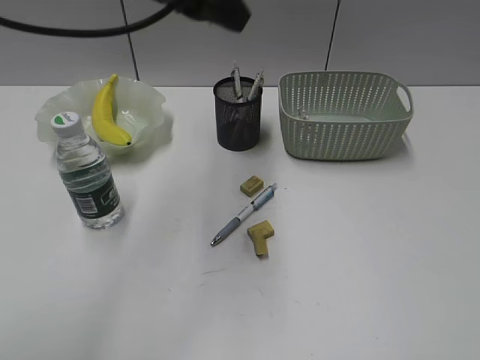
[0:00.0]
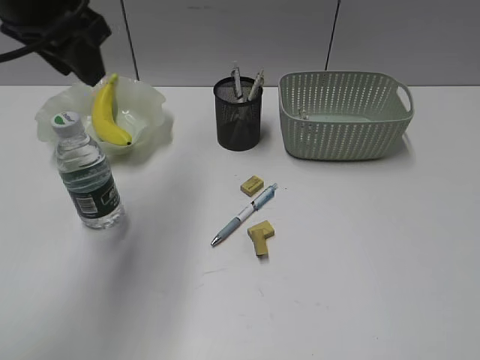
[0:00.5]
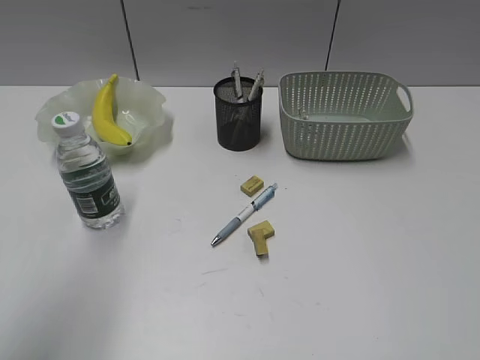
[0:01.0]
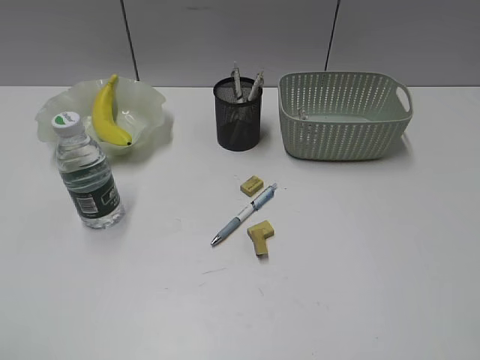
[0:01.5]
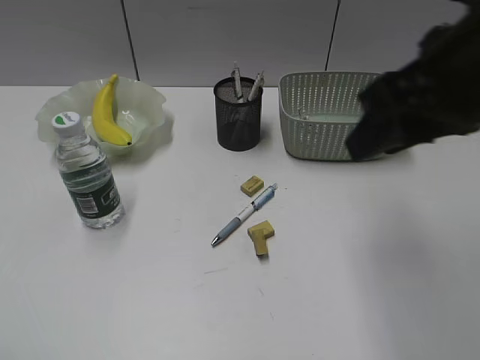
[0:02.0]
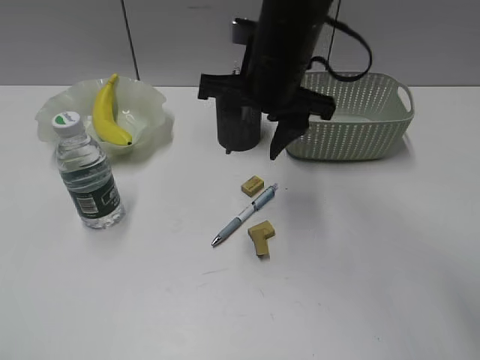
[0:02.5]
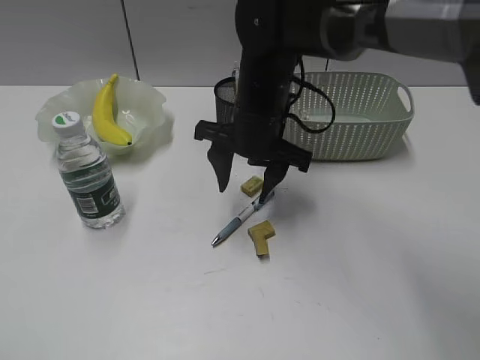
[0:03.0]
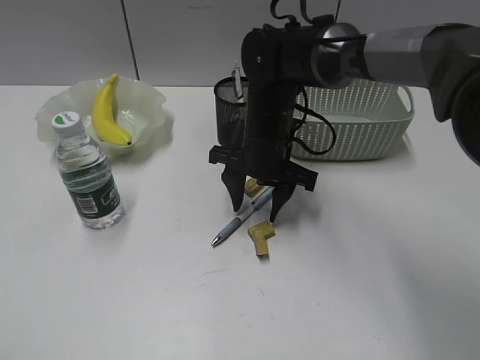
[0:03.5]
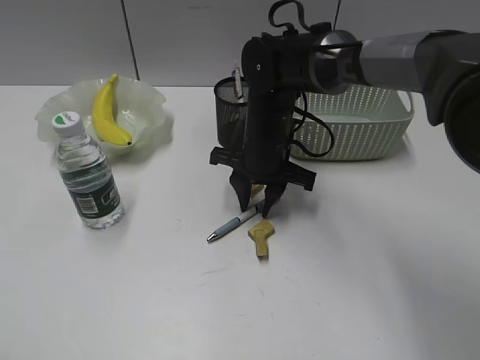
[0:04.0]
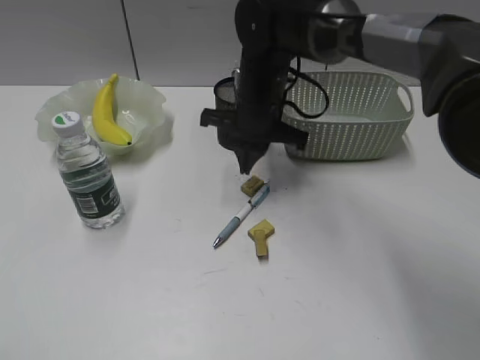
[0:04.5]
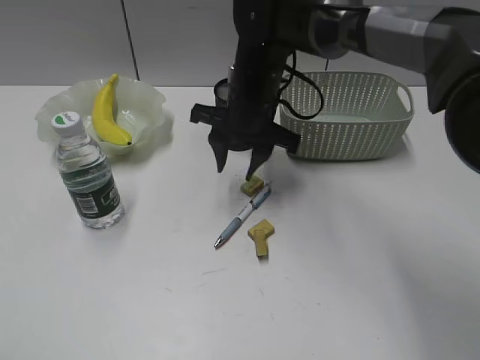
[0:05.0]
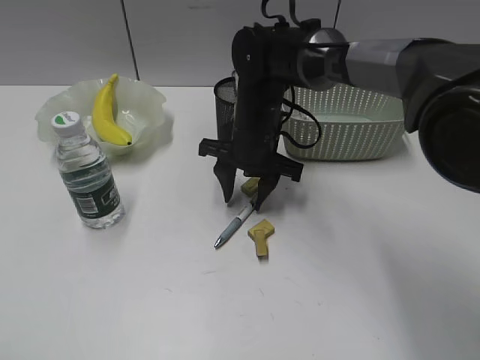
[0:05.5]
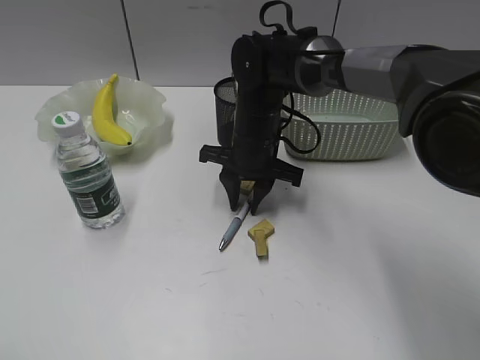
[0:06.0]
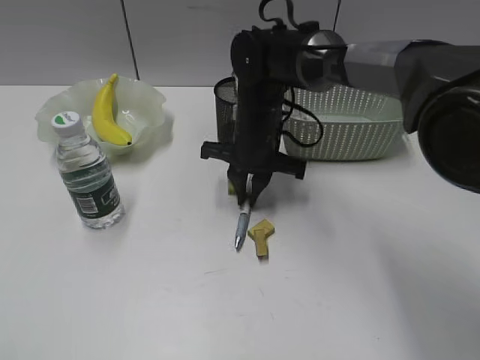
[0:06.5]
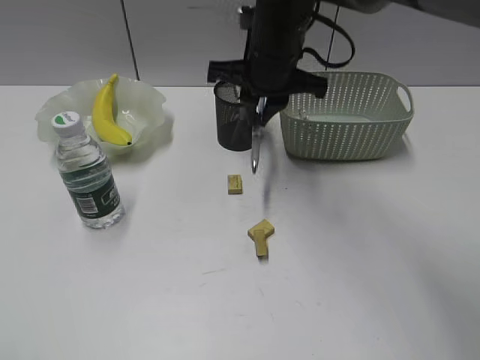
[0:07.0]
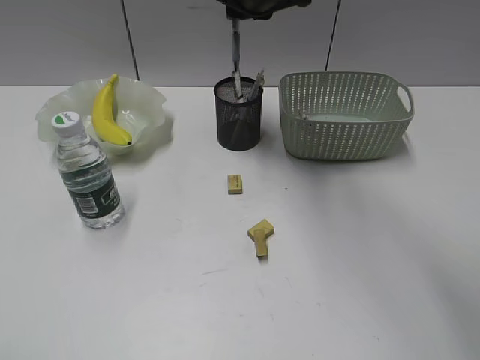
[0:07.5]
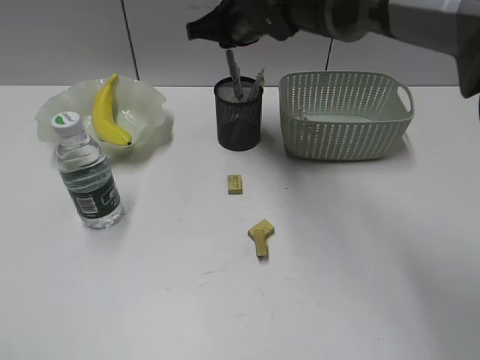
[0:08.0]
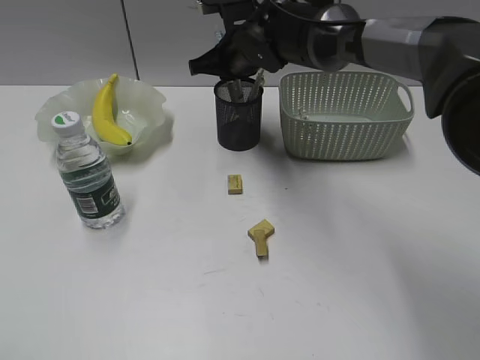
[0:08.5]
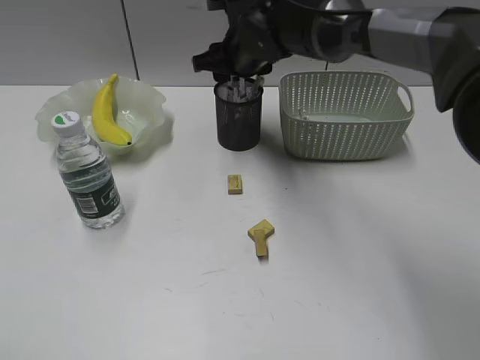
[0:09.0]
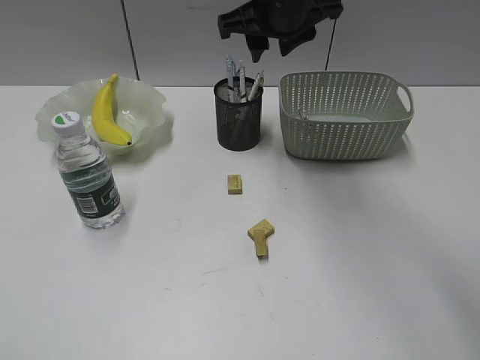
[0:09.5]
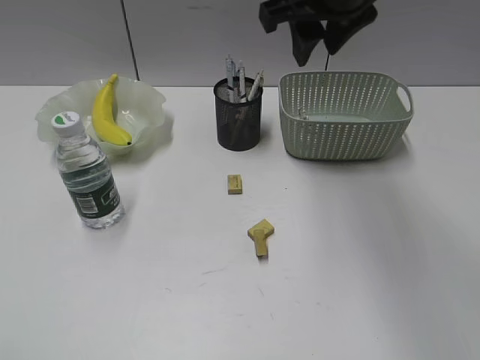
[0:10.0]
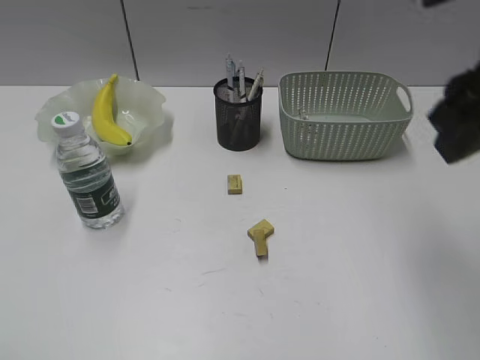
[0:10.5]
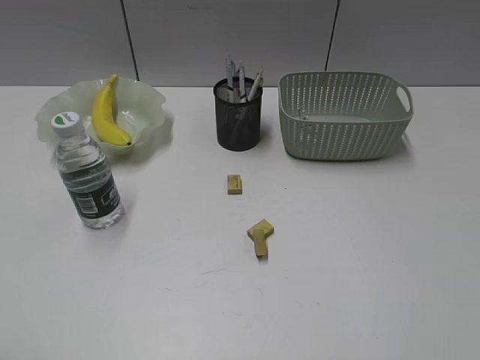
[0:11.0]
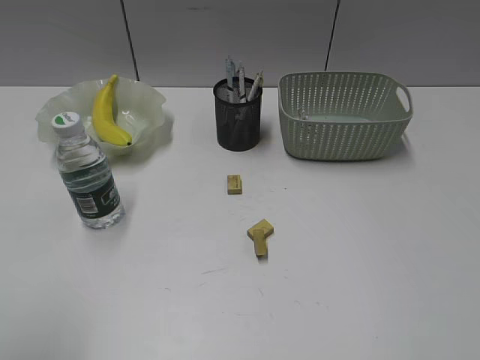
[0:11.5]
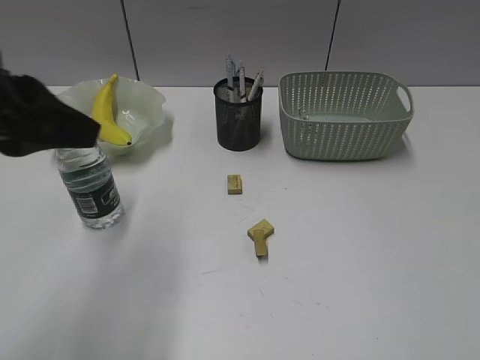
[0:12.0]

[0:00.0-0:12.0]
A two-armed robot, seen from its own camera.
Step, 0:00.0 to 0:06.0: Grasp the blue pen with right gripper.
Step, 0:06.5 to 0:09.0: Place the blue pen in pen holder with right gripper.
0:00.0 to 0:02.0: The right gripper moves forward and to the left, some 25 cm. Meanwhile the left gripper is displaced backward and to the left by some 40 cm.
0:02.0 to 0:04.0: The right gripper moves downward, forward and to the left, approximately 30 cm.
0:04.0 to 0:06.0: The right gripper closes, then reopens.
0:06.0 to 0:08.0: The right gripper heads upward and forward, covering roughly 15 cm.
0:08.0 to 0:10.0: The right gripper heads backward, upward and to the right, covering approximately 15 cm, and opens its fingers.
0:10.0 to 0:12.0: The left gripper shifts about 20 cm forward and to the right. Meanwhile the right gripper goes roughly 40 cm backward and to the right.

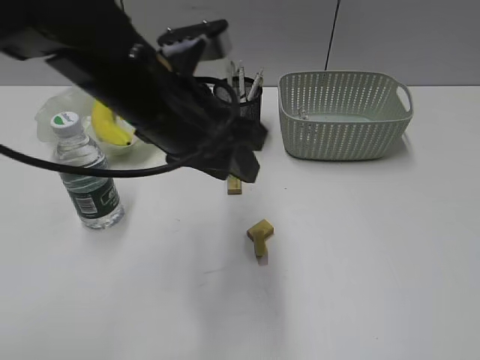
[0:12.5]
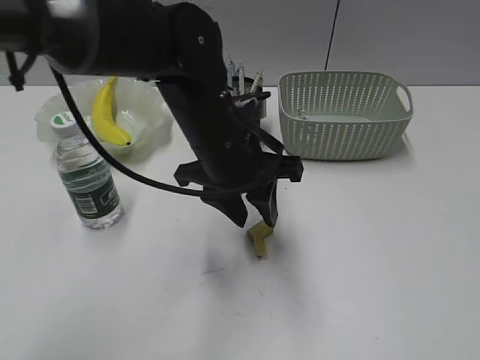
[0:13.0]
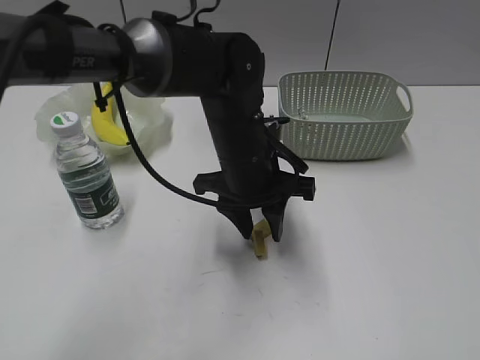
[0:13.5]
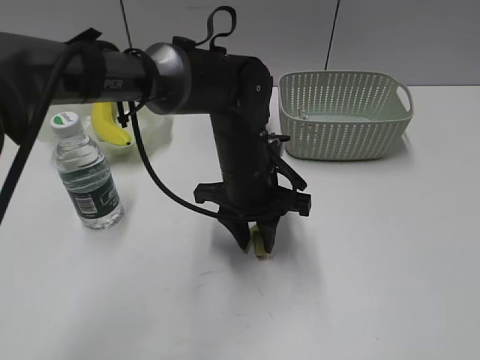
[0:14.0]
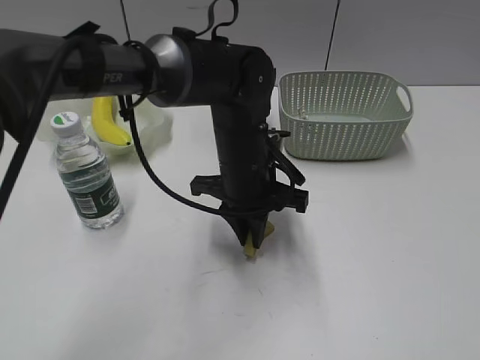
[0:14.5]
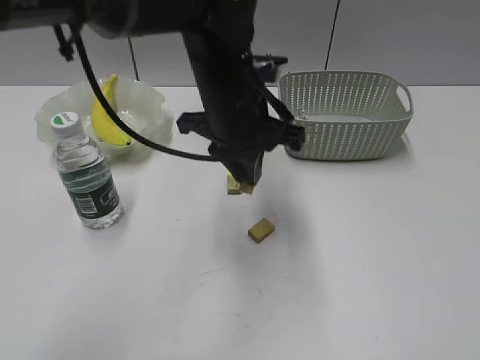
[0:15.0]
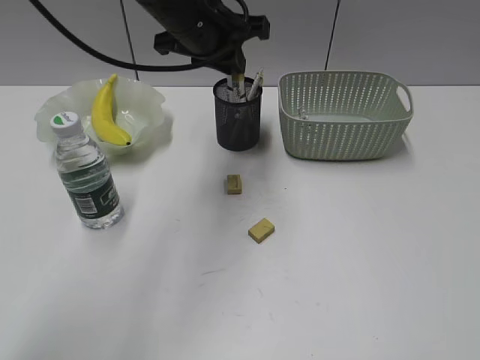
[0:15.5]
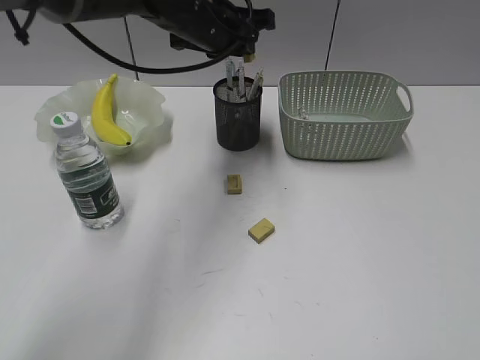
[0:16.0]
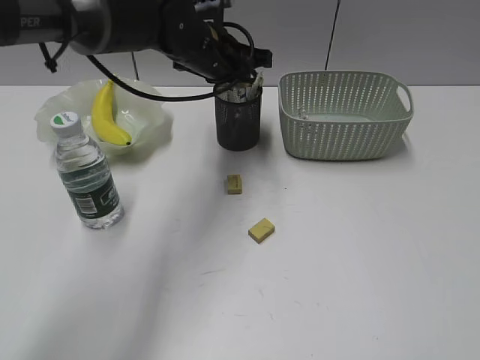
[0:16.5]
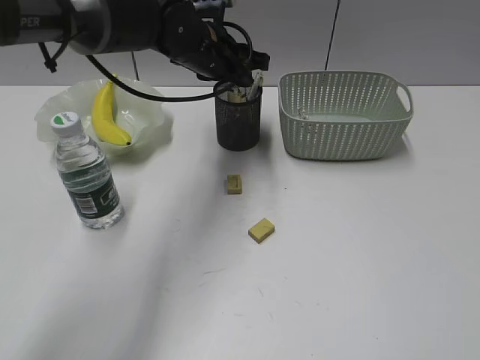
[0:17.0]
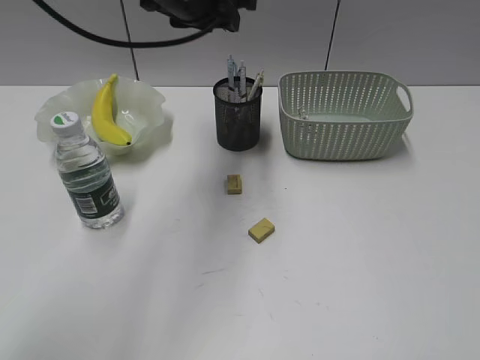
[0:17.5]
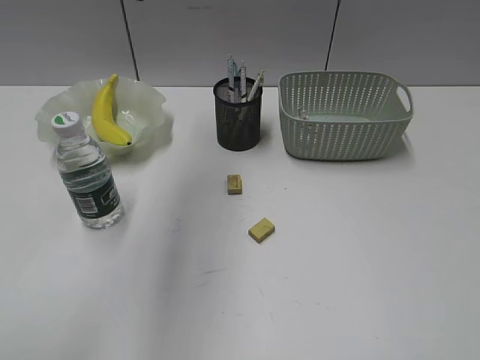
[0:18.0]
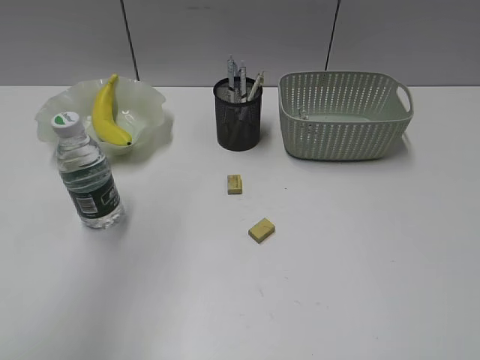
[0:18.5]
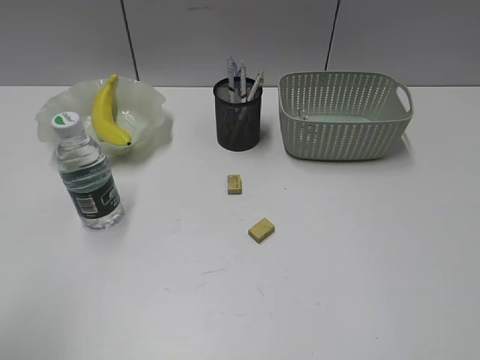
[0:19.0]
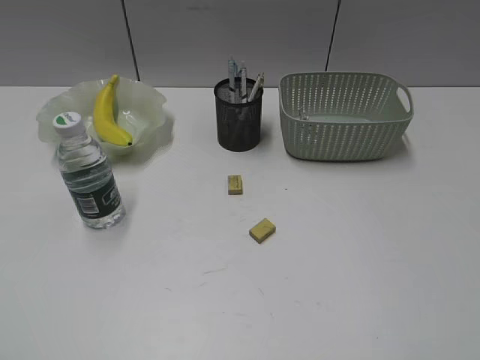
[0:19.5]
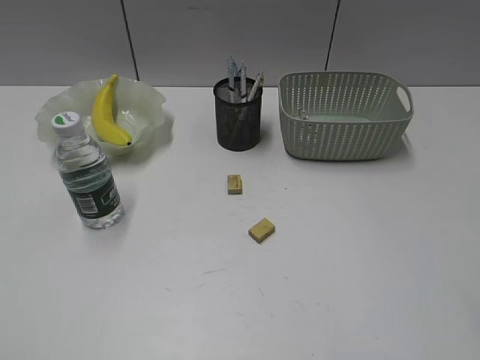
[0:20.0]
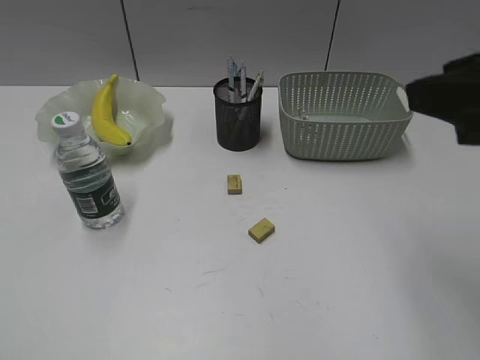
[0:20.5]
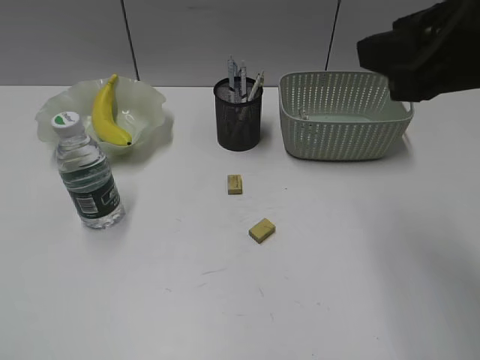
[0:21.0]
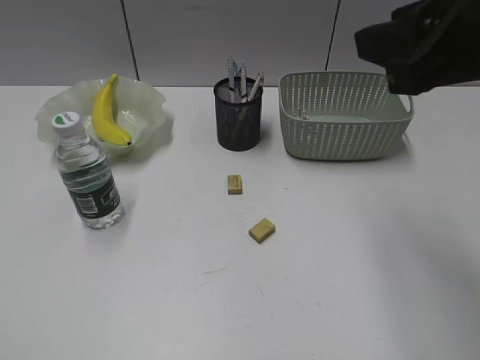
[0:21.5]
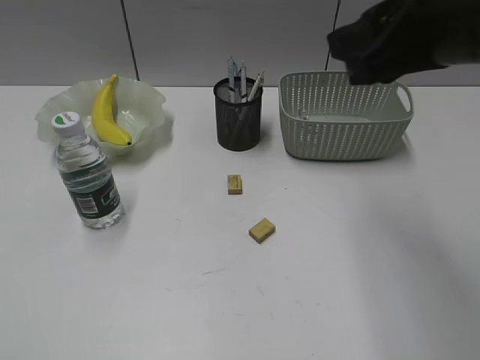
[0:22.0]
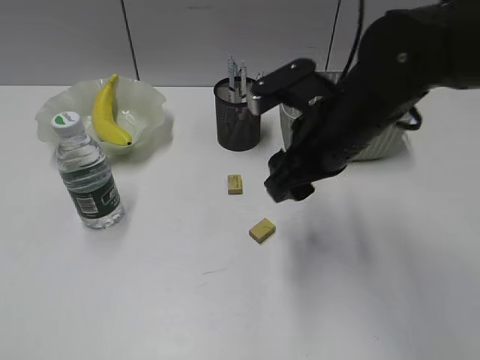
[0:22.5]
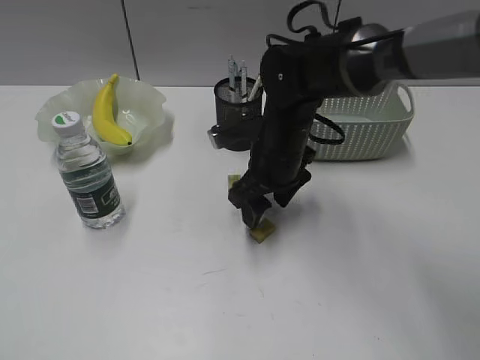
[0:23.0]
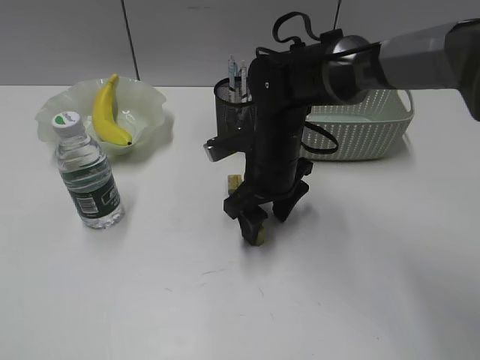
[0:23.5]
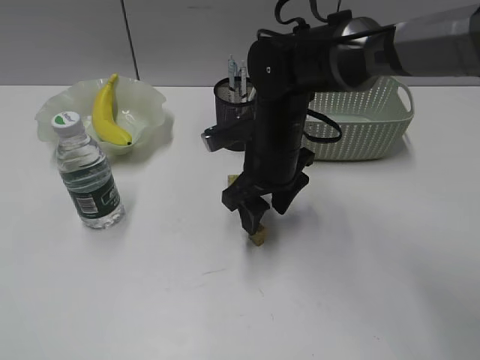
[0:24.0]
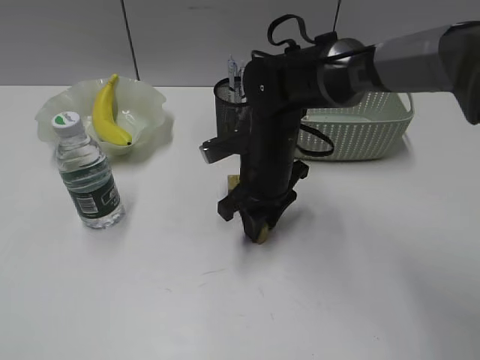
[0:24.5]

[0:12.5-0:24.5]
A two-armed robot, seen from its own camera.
Step, 0:14.5 to 0:17.0: Place the eraser in pen holder with left gripper.
0:12.5 to 0:14.5: The left gripper travels downward, to the right and forward by about 15 cm, and closes up.
0:14.5 to 0:16.5: The left gripper moves forward, upward and to the left, some 15 cm.
0:16.5 to 0:18.5: The left gripper shifts about 40 cm upward, backward and to the left, and opens.
0:18.5 to 0:20.5: The right gripper shifts some 20 cm forward and to the left; the left gripper is displaced backward, downward and to the left by about 30 cm.
0:20.5 to 0:22.5: The right gripper heads downward, forward and to the left, covering some 20 cm.
0:22.5 to 0:24.5: The right gripper travels downward, to the left and forward by approximately 15 cm.

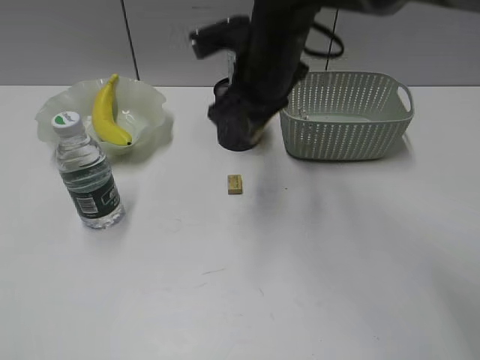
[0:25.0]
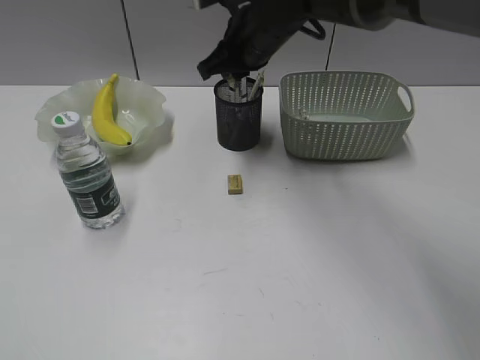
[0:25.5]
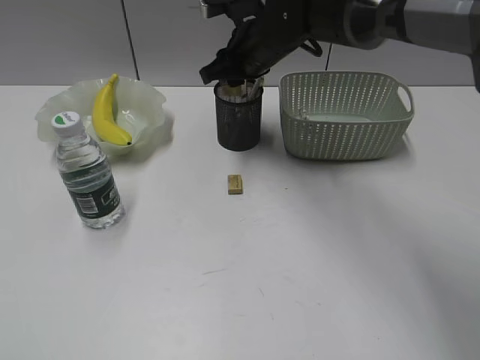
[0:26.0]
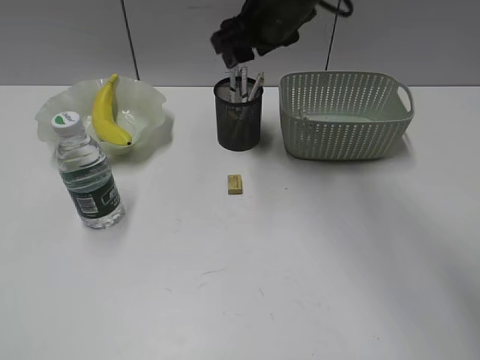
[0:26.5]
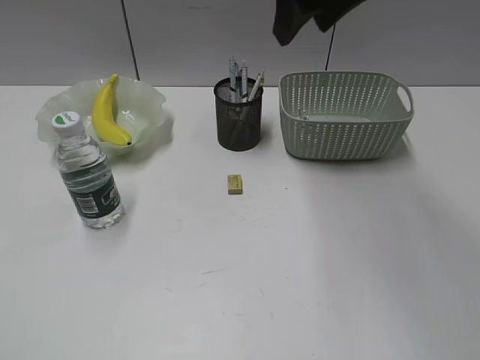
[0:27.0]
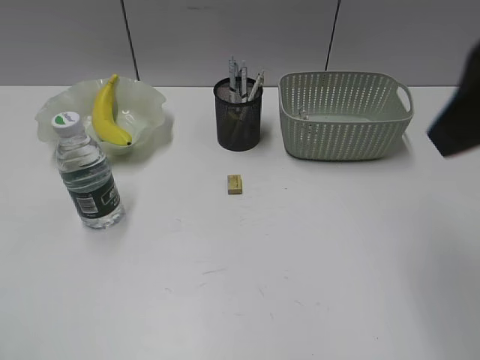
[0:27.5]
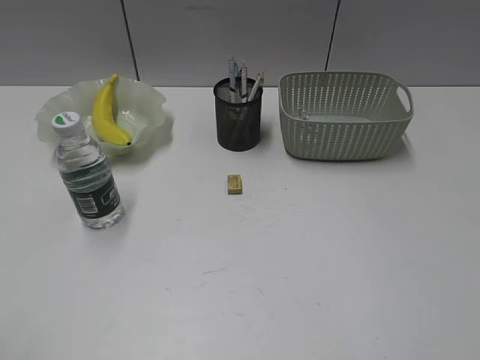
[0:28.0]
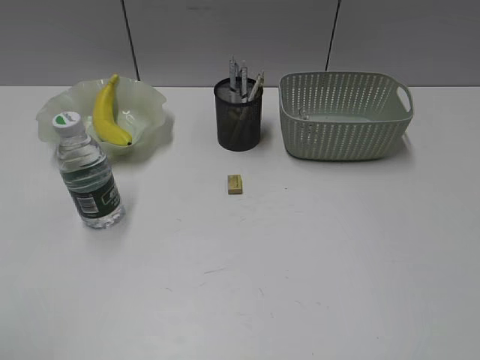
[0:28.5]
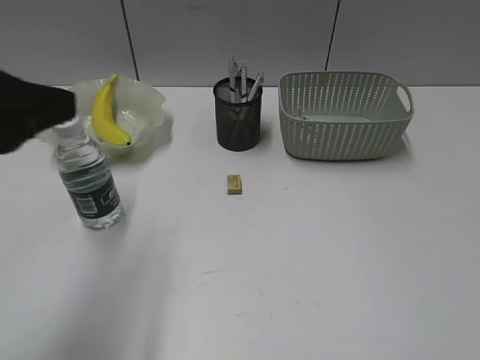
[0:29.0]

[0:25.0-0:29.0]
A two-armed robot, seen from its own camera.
Step, 0:25.0 to 0:26.0: Place the eraser in pen holder with right gripper.
0:25.0 to 0:27.0: The right gripper is displaced upward and to the right by roughly 15 cm, and opens its fingers.
0:27.0 to 0:29.0: The left gripper goes some 20 cm forward and to the right, while the right gripper travels backward and to the right by some 40 cm.
